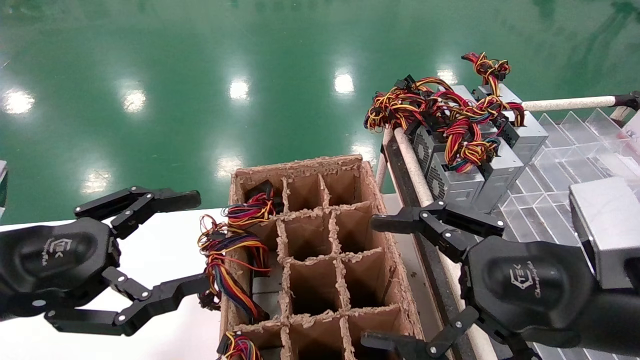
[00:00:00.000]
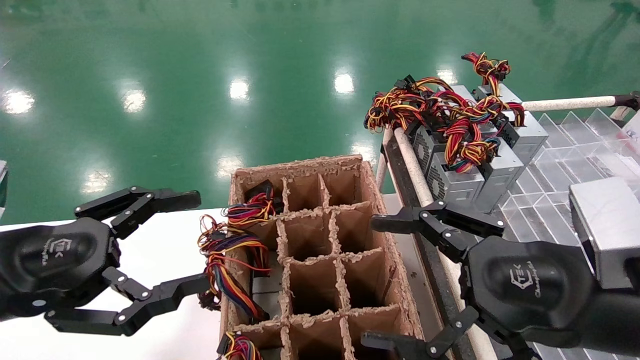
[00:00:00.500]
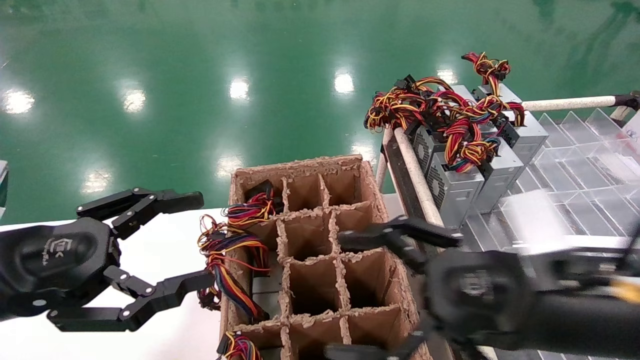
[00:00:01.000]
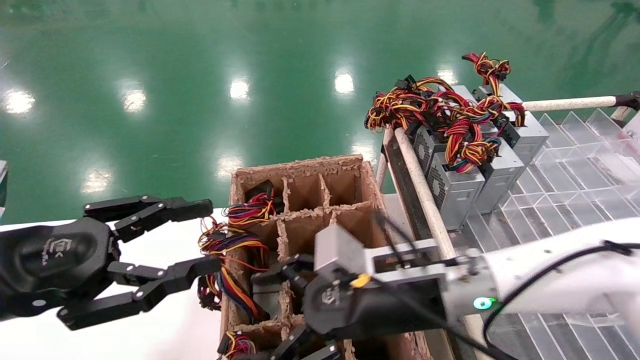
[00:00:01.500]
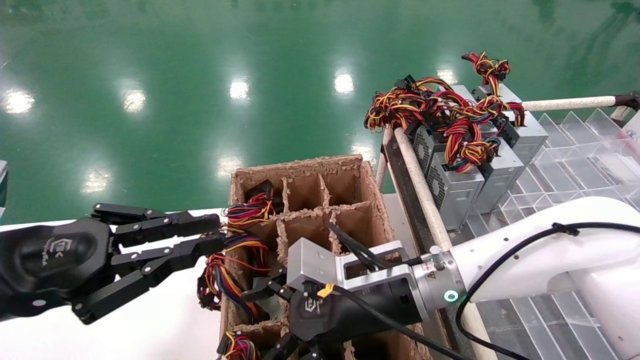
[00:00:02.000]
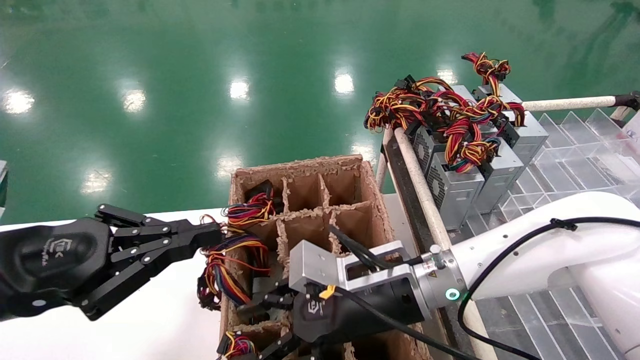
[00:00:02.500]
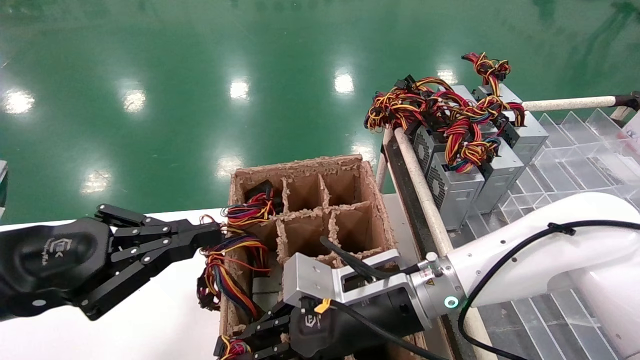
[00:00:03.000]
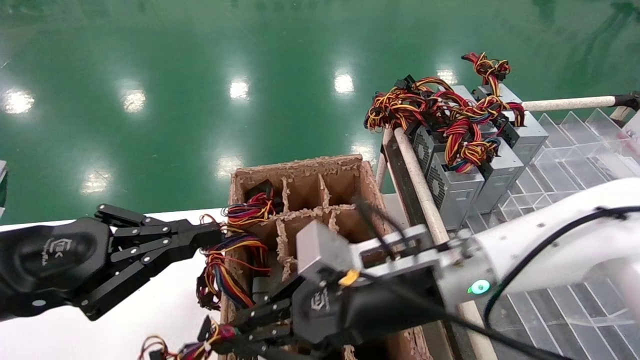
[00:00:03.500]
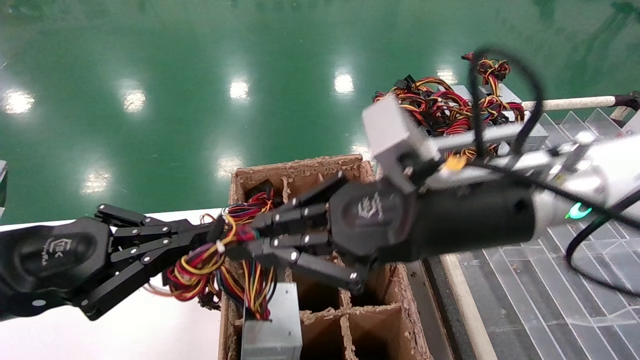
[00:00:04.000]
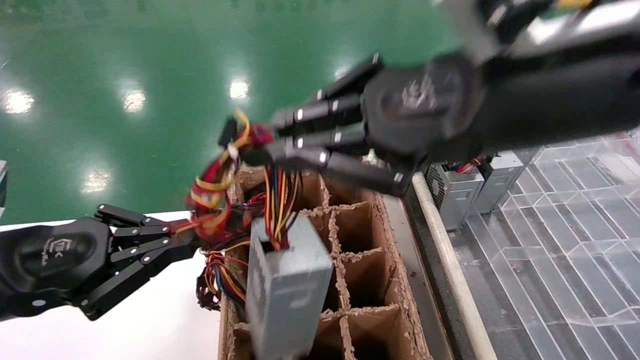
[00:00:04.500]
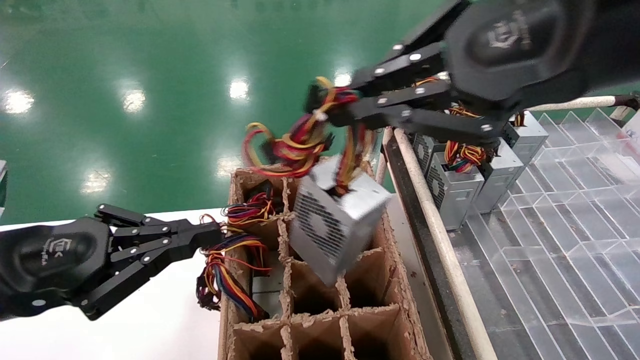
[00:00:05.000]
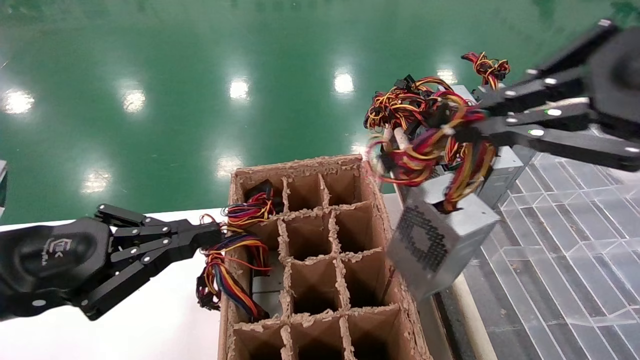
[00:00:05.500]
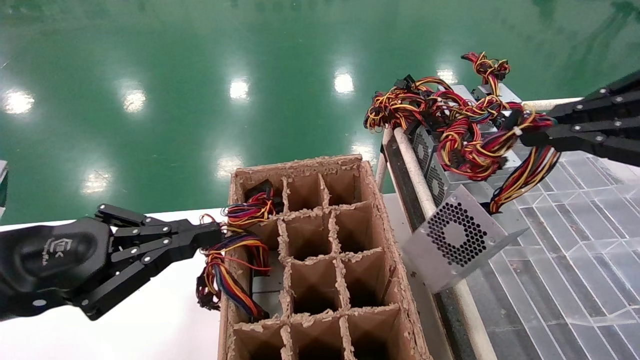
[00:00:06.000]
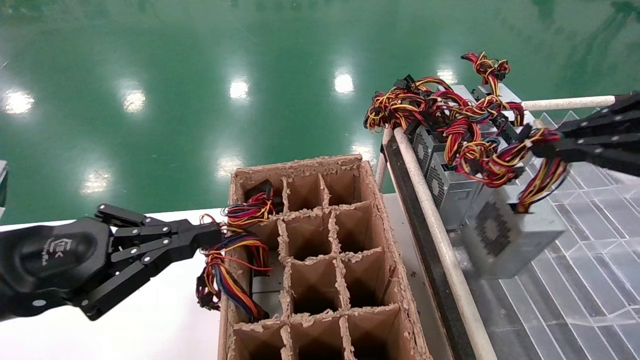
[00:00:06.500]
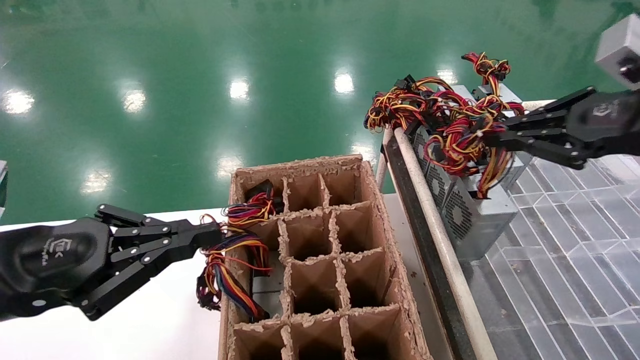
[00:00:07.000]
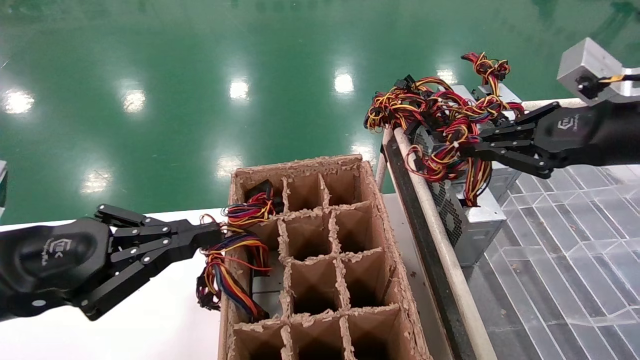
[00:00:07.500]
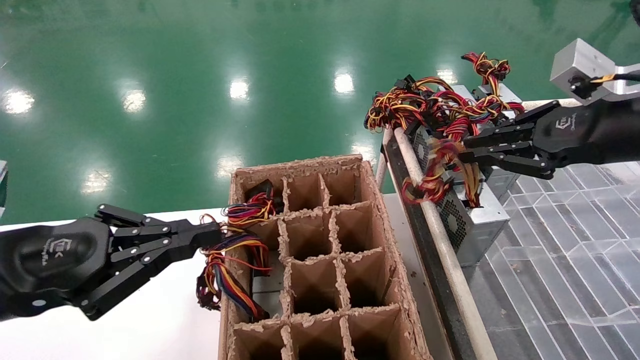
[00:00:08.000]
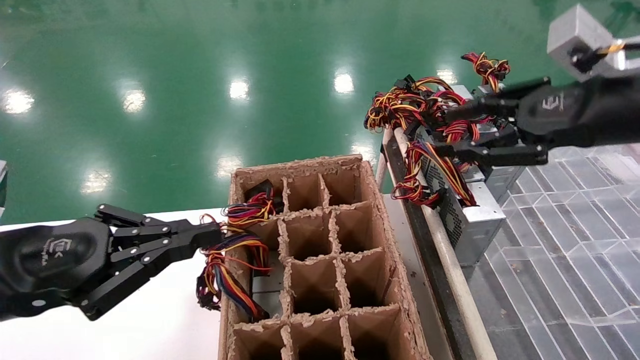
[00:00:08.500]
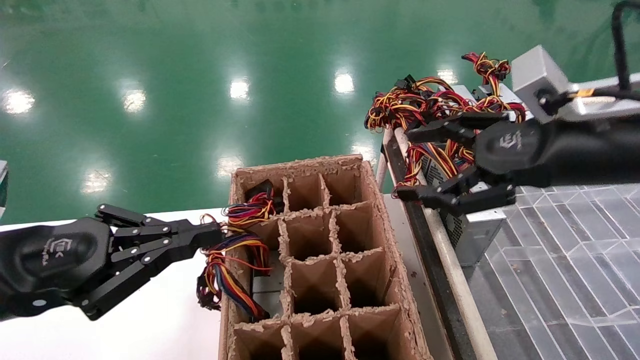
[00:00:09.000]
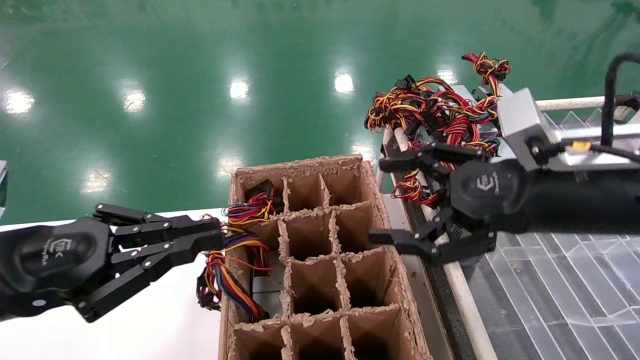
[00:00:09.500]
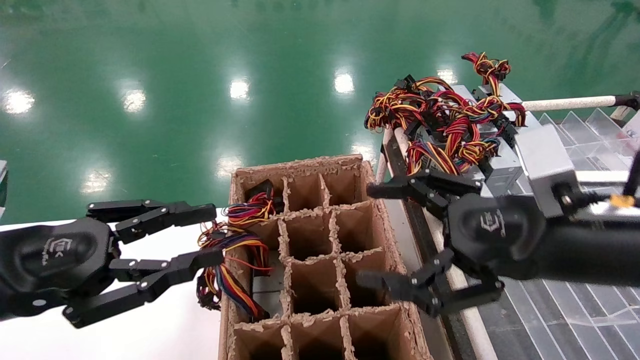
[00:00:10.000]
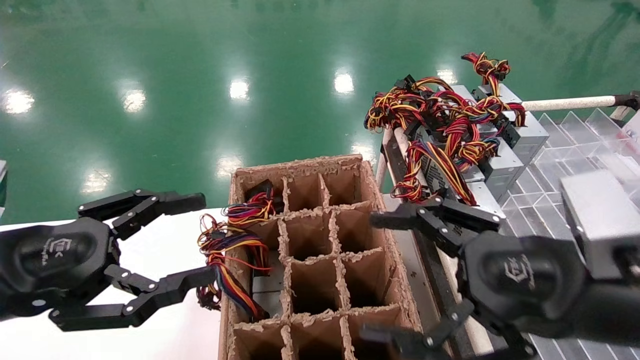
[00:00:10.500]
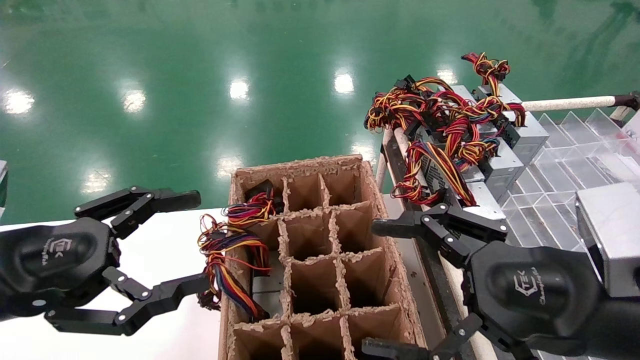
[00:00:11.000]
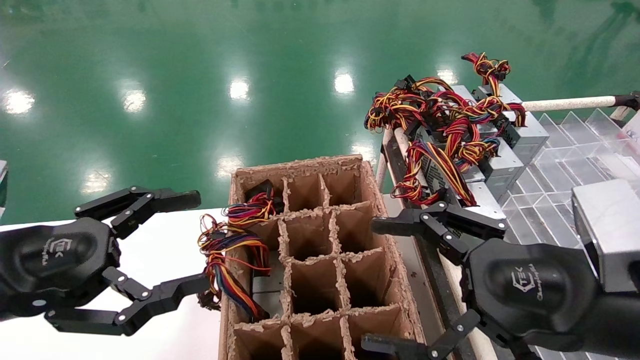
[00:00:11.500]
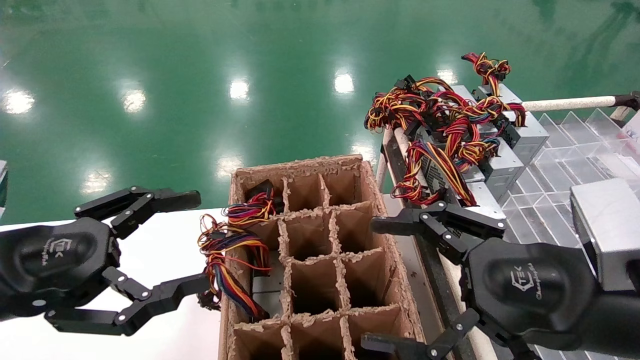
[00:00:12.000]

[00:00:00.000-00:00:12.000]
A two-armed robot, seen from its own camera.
Step, 00:00:01.500 to 00:00:03.000: Grab the main unit power supply from the containment box.
Step, 00:00:03.500 to 00:00:08.000: Place the main unit power supply in the designated area.
00:00:00.000 to 00:00:02.000: The right gripper moves to the left, forward and downward, roughly 20 cm. Meanwhile the left gripper closes its fingers.
00:00:02.000 to 00:00:04.000: The right gripper travels upward and backward by about 15 cm, and closes up.
00:00:04.000 to 00:00:06.000: The right gripper heads to the right, upward and backward, covering roughly 25 cm.
00:00:06.000 to 00:00:08.000: The right gripper goes roughly 10 cm forward.
00:00:08.000 to 00:00:10.000: The right gripper is displaced to the left and downward by some 15 cm, and opens up.
00:00:10.000 to 00:00:12.000: The left gripper opens. The right gripper ends up some 5 cm from where it was.

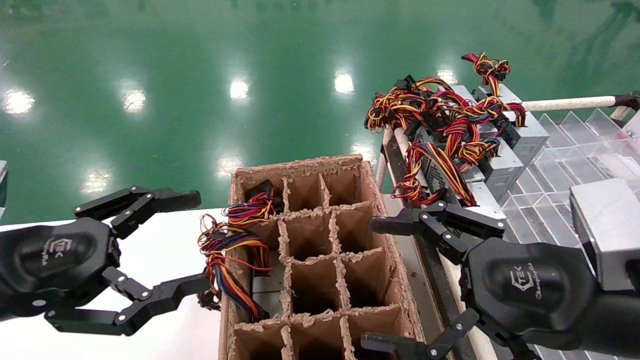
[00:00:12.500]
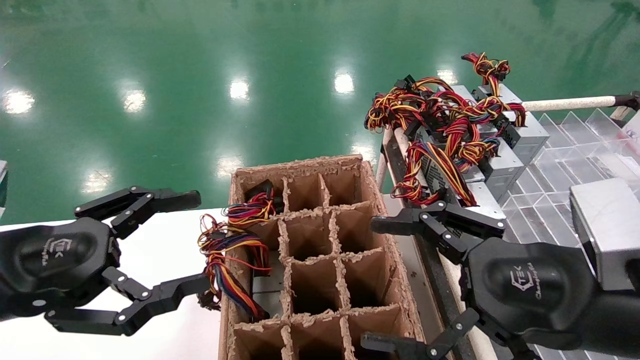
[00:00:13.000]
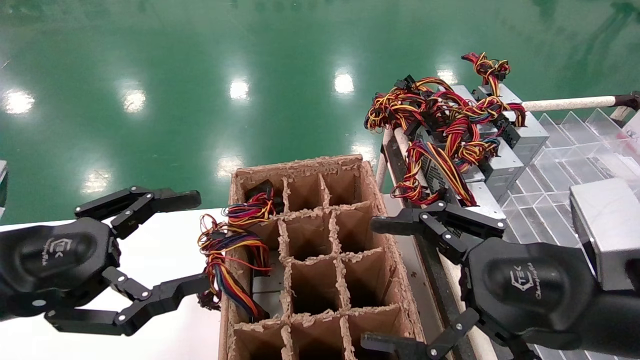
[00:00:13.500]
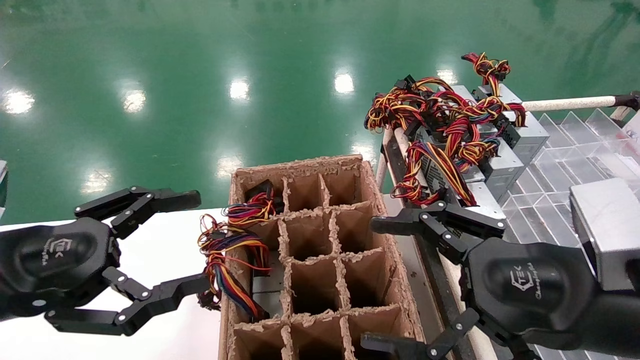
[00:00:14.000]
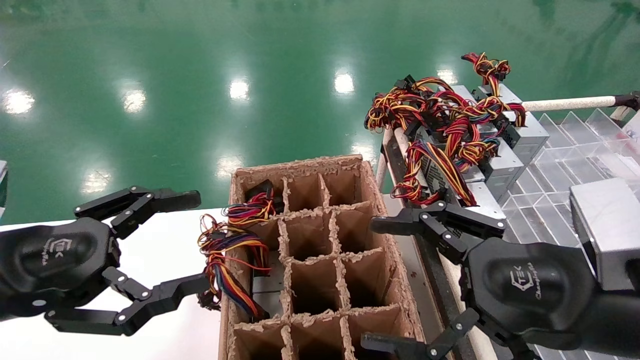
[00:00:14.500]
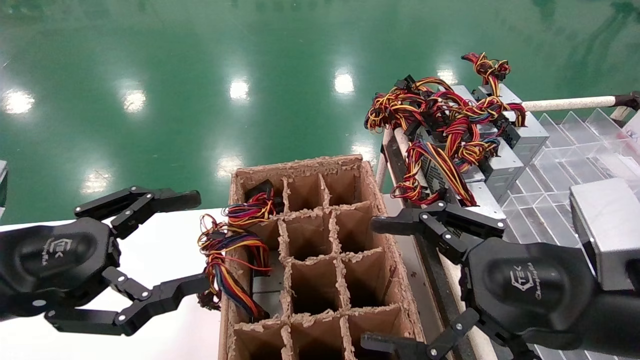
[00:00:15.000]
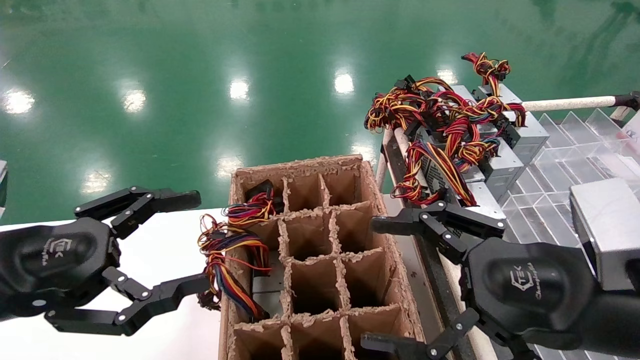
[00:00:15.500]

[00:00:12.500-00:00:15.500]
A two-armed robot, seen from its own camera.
00:00:12.500 to 00:00:15.500: Neither gripper changes place.
